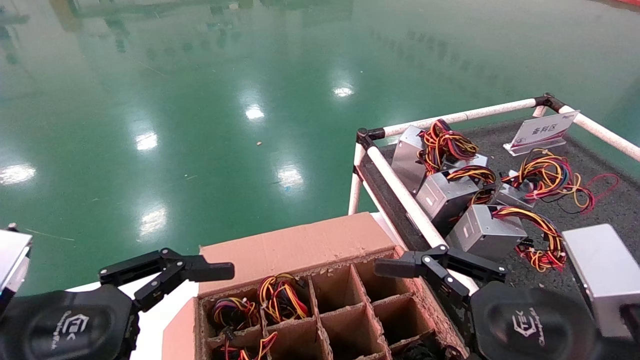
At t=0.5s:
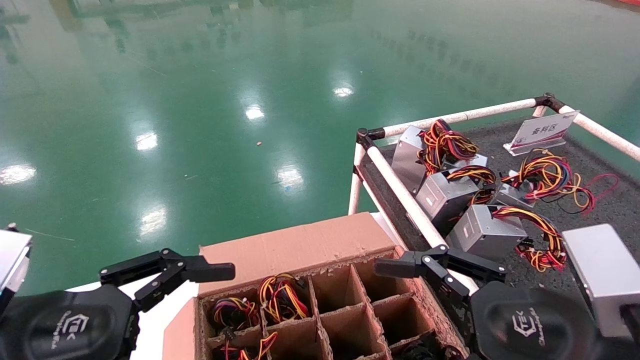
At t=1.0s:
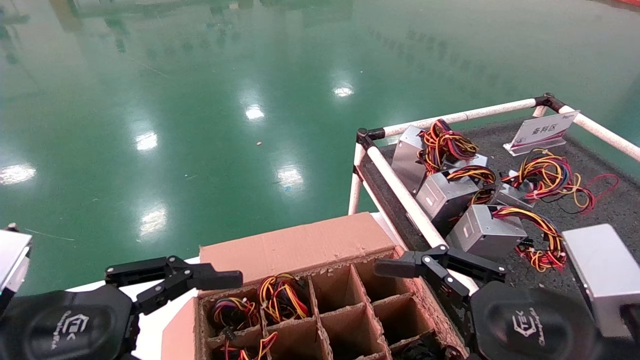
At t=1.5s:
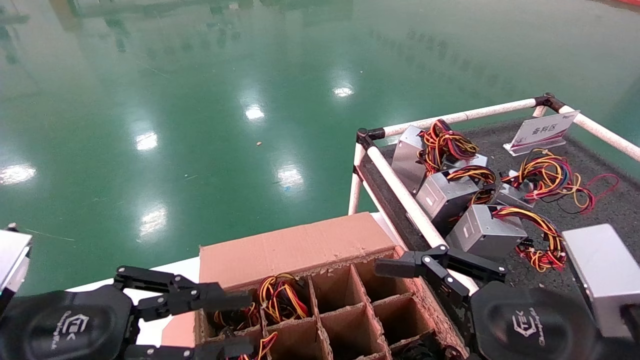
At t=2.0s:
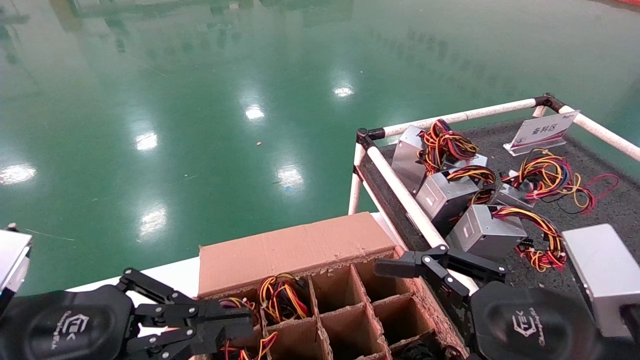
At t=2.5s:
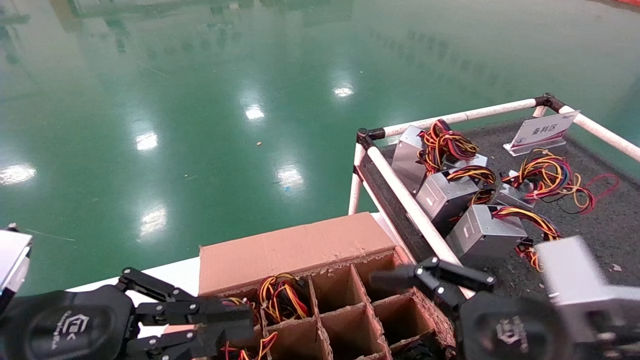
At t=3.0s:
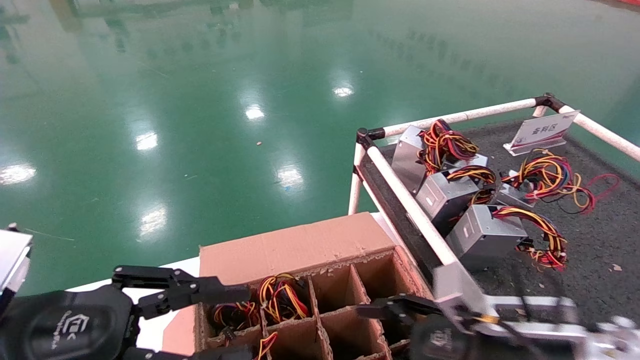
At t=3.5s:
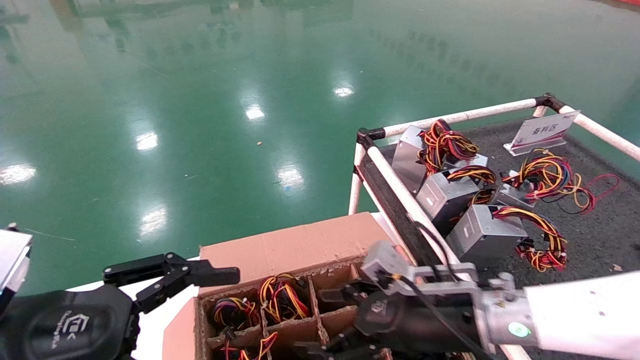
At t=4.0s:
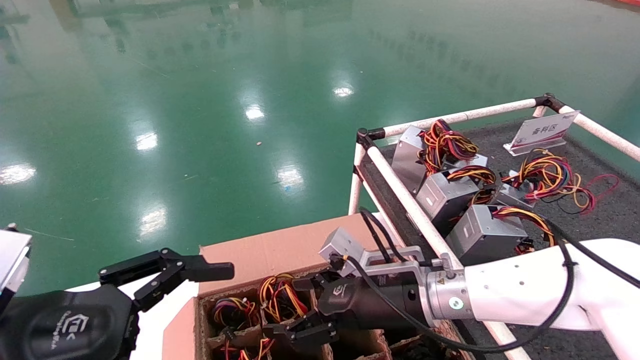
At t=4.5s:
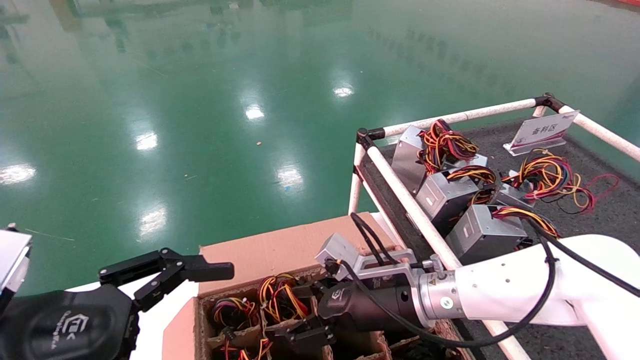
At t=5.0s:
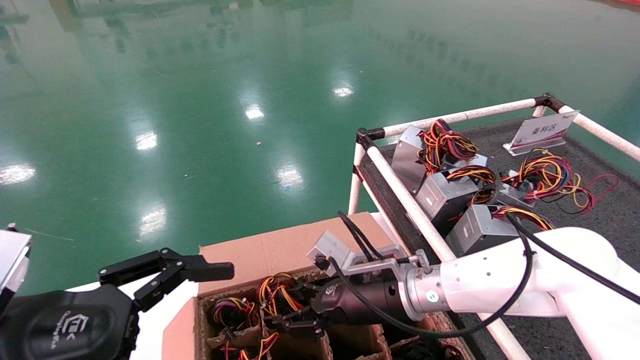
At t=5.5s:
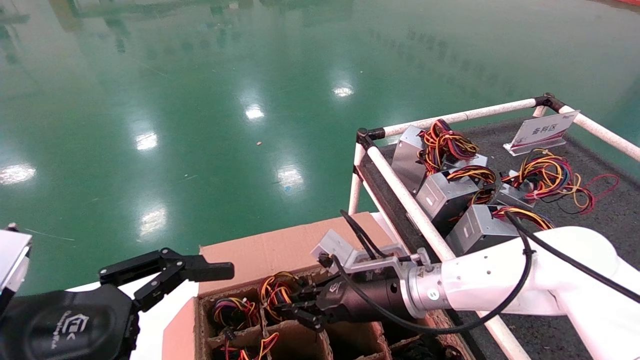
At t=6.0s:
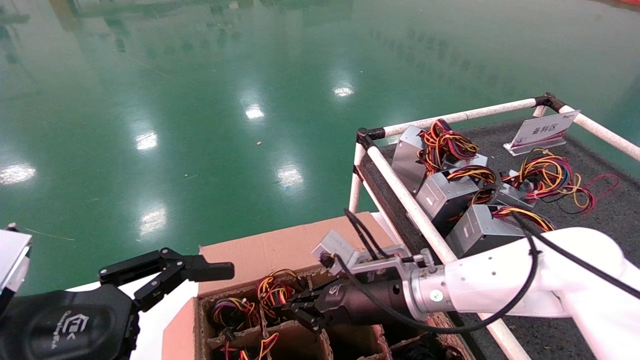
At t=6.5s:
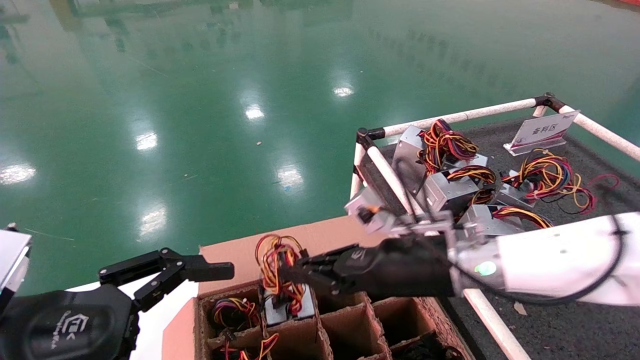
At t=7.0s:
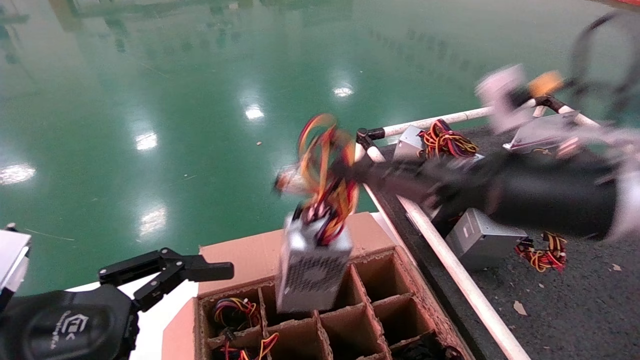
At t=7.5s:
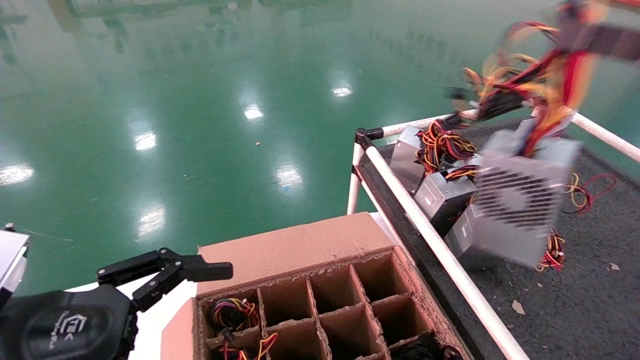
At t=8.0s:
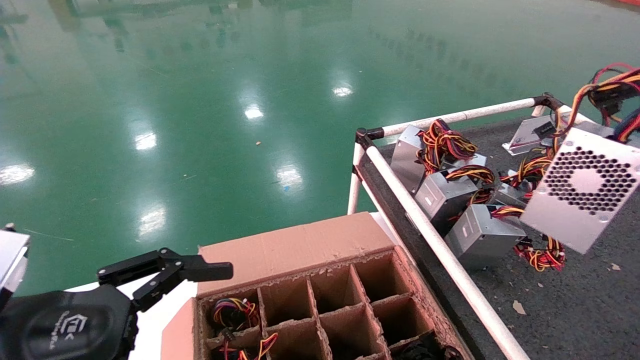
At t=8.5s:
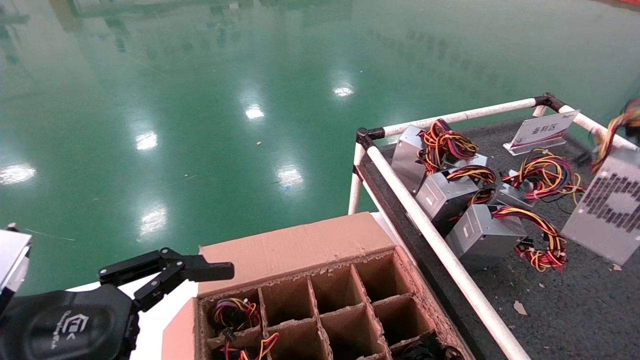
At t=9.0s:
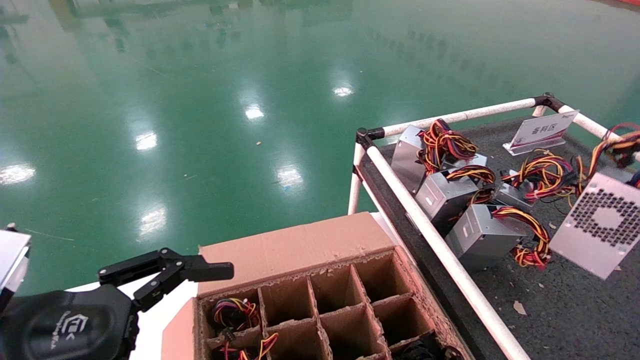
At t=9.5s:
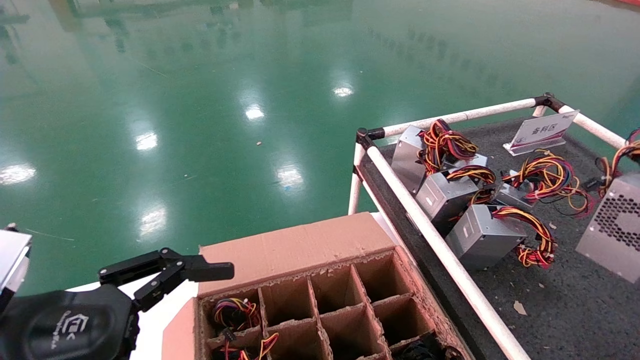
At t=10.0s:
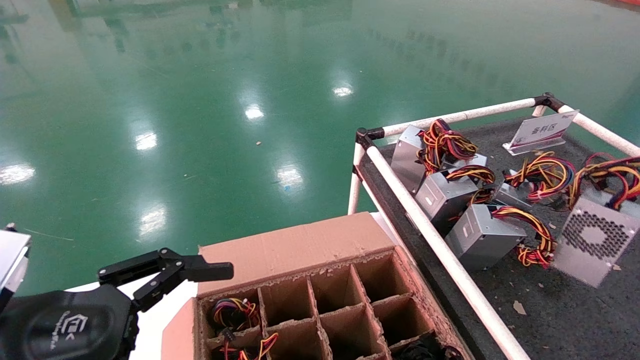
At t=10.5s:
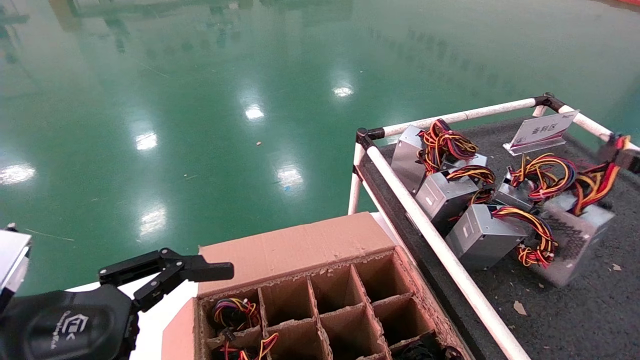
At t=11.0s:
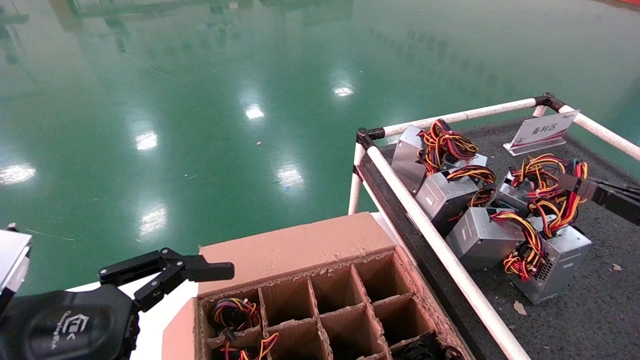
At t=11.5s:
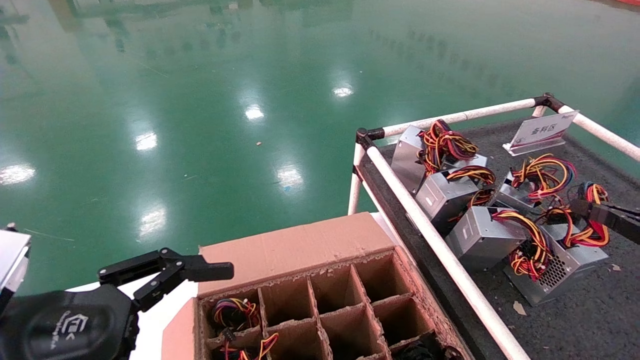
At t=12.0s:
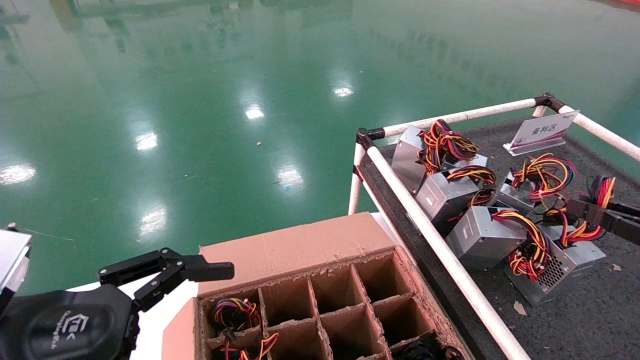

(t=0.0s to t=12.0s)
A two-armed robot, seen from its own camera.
Step, t=3.0s - t=6.0s: Grab and lift the power supply from the large box.
Step, t=6.5s - t=11.5s: Place the power supply on the operating table.
t=0.0s - t=2.0s: The left gripper closes.
t=2.0s - t=4.0s: The right gripper moves forward and to the left, about 20 cm, while the left gripper opens.
t=4.0s - t=6.0s: The right gripper closes up.
t=6.0s - t=8.0s: The right gripper moves to the right, backward and upward, approximately 50 cm.
t=8.0s - t=10.0s: The right gripper moves downward, forward and to the right, roughly 15 cm.
t=10.0s - t=12.0s: The right gripper moves downward, approximately 5 cm.

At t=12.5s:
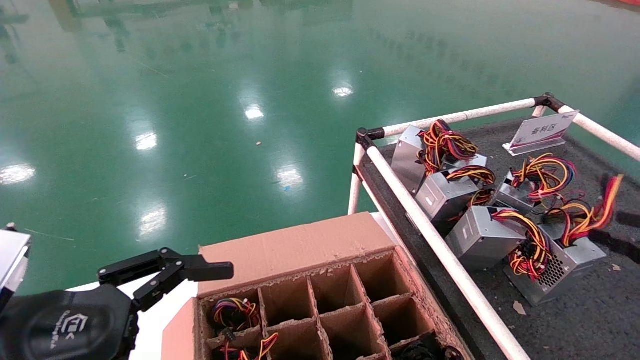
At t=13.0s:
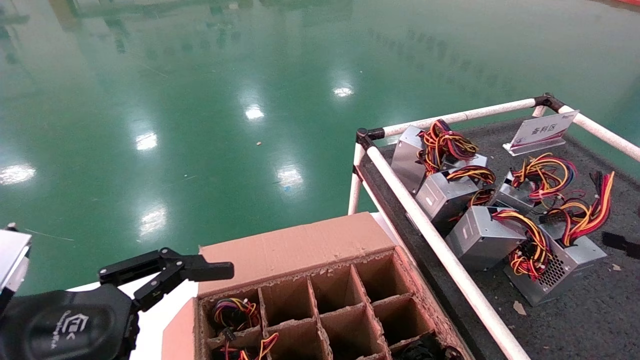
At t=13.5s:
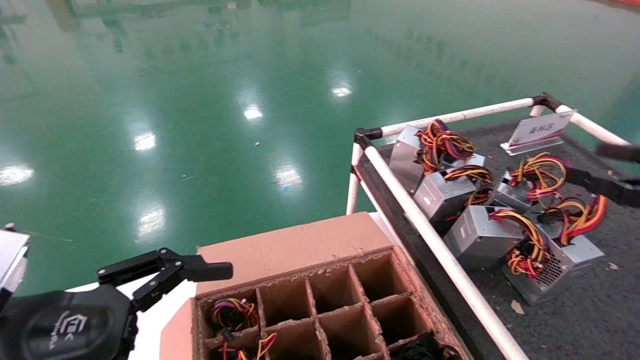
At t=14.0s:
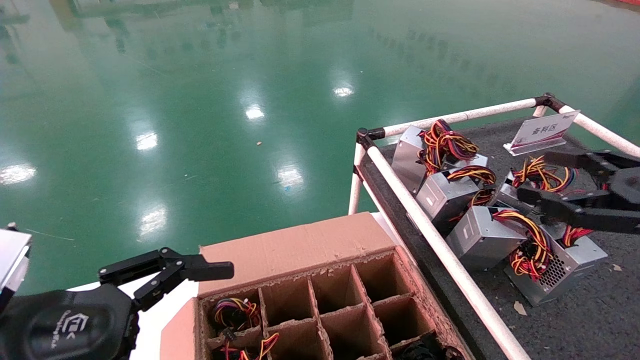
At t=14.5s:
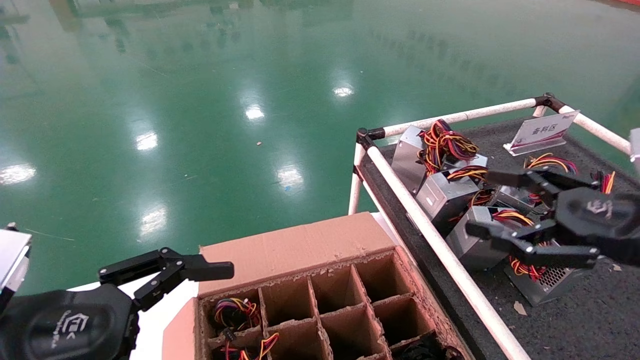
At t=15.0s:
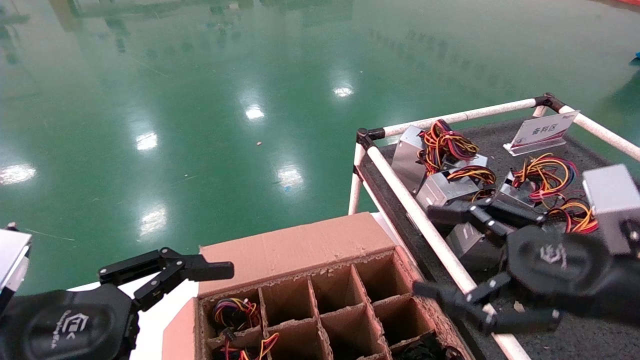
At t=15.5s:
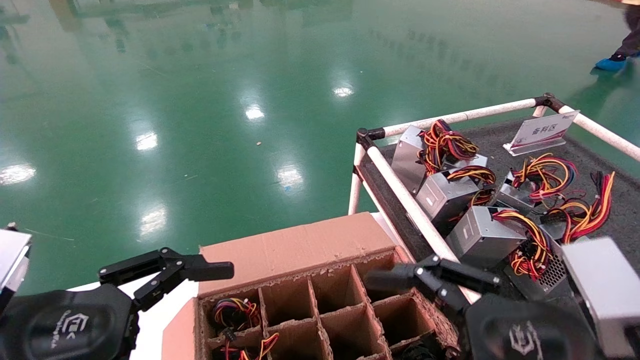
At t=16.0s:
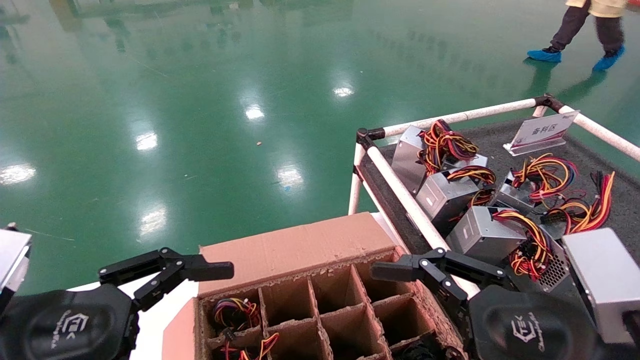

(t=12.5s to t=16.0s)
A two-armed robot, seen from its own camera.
t=12.5s - t=14.5s: The right gripper moves to the left, roughly 15 cm, and opens up.
t=14.5s - t=16.0s: The right gripper shifts roughly 15 cm to the left, backward and downward.
